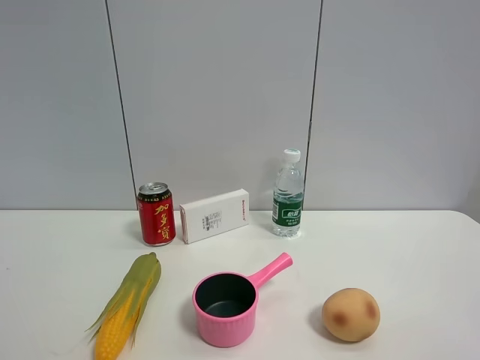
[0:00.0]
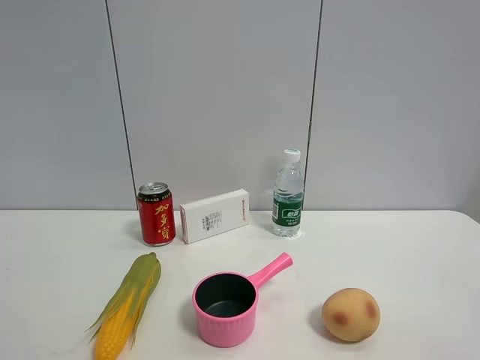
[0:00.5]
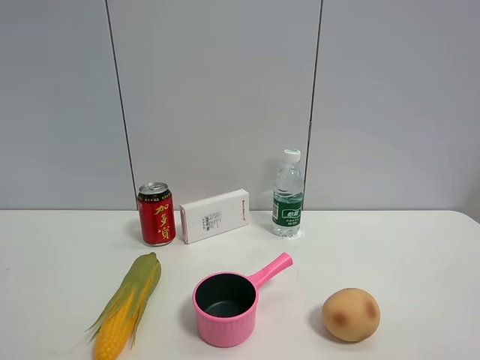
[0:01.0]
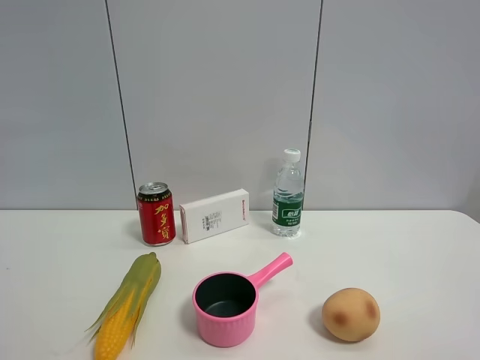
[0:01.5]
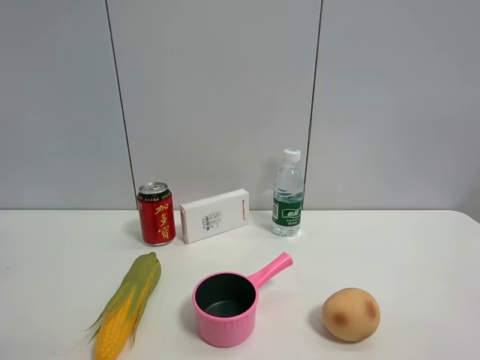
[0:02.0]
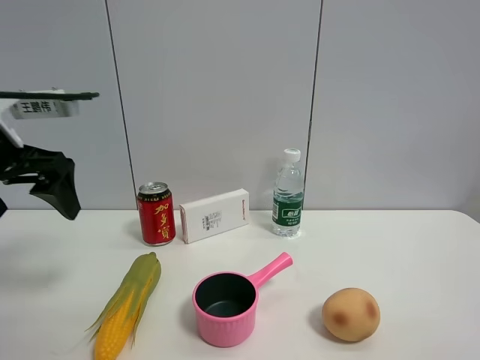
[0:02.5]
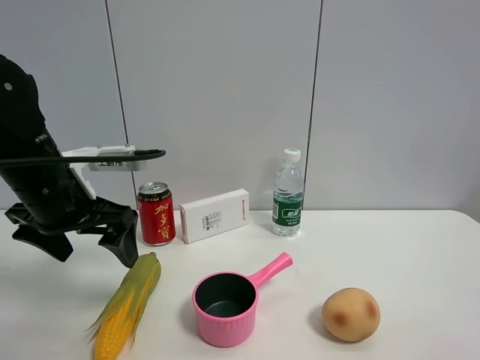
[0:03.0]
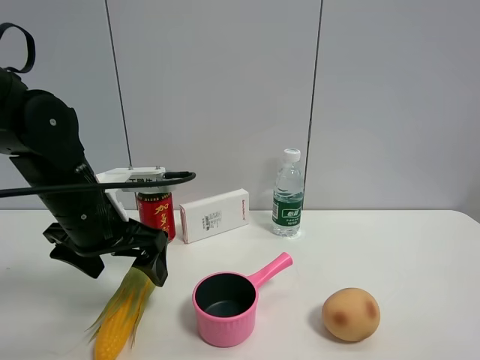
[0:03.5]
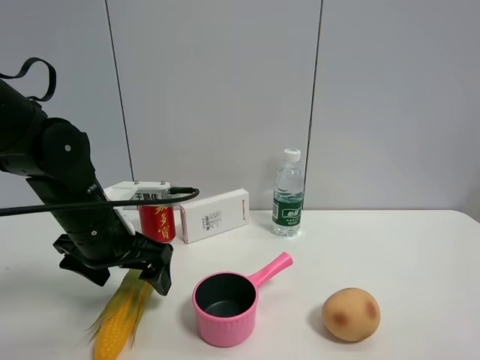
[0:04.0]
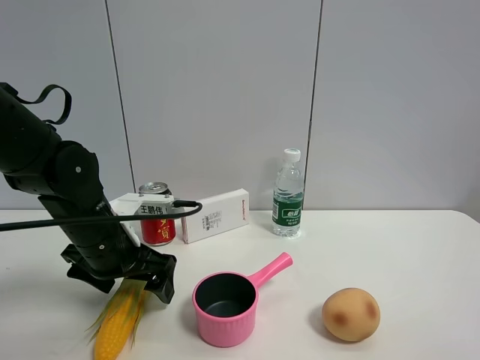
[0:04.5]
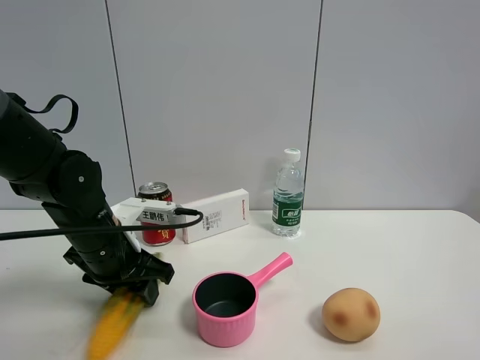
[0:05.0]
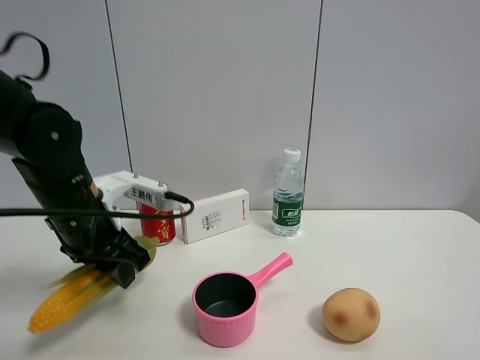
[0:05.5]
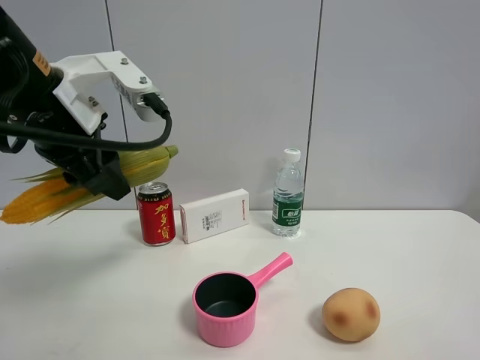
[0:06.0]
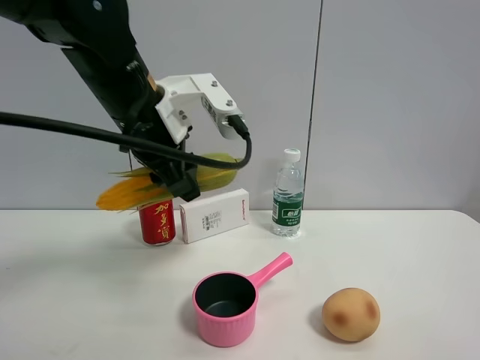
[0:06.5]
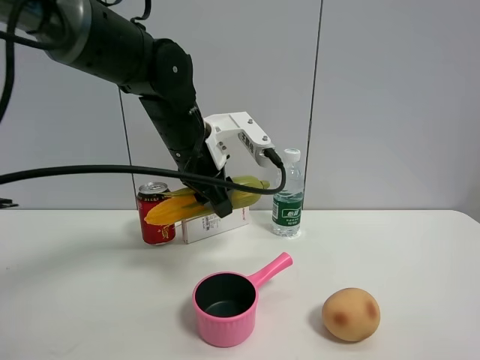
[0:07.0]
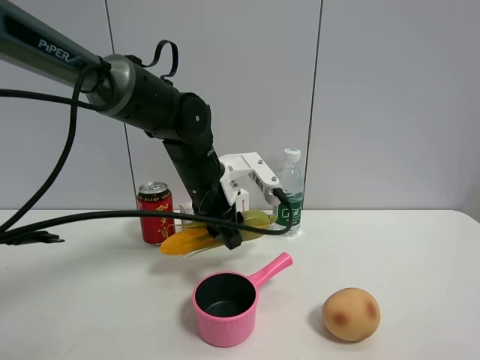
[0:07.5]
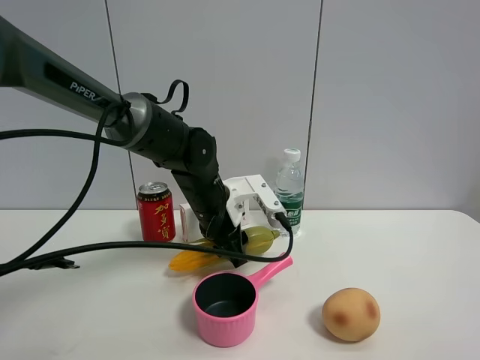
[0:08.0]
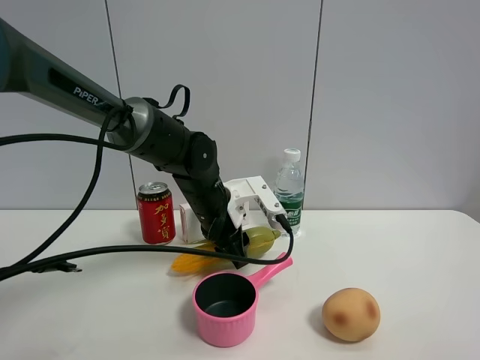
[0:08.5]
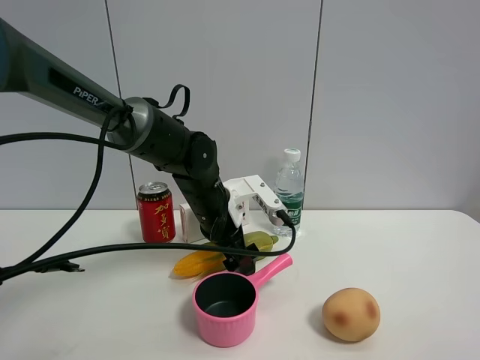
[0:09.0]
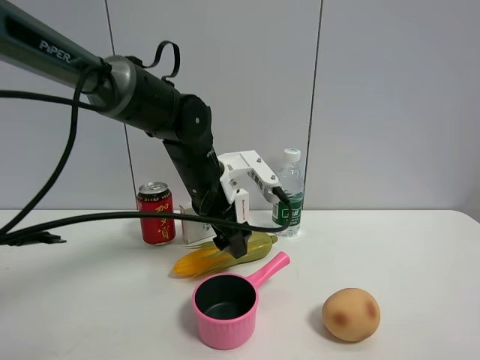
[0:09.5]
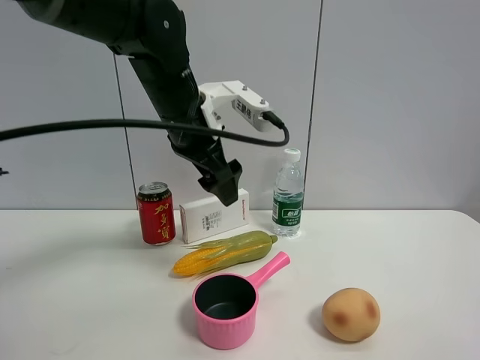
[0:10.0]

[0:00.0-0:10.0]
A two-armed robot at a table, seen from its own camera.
Task of the whole recording: the gripper move the object.
Step, 0:00.0 to 0:05.0: Grasp the corn with the left gripper.
Step, 0:05.5 to 0:09.0: Place the corn on the table with the left gripper.
0:02.0 to 0:04.0: The left gripper shifts approximately 25 cm downward and to the right.
0:04.0 to 0:06.0: The left gripper goes about 15 cm upward, and closes.
0:06.0 to 0:08.0: The left gripper shifts roughly 25 cm downward, forward and to the right.
0:08.0 to 0:10.0: The left gripper goes about 15 cm upward, and opens.

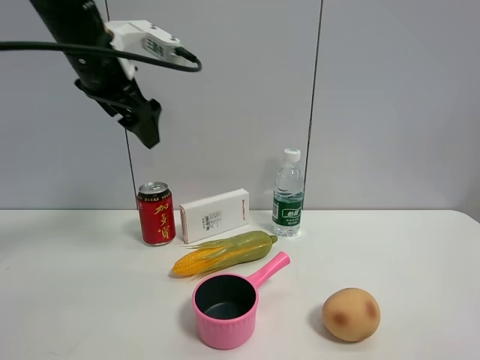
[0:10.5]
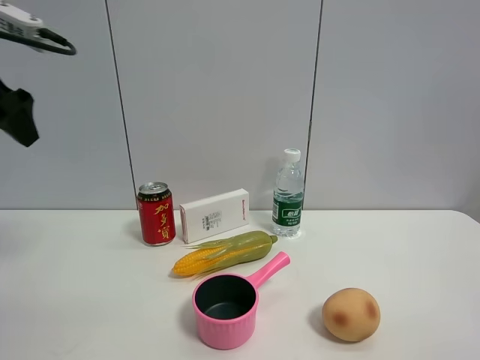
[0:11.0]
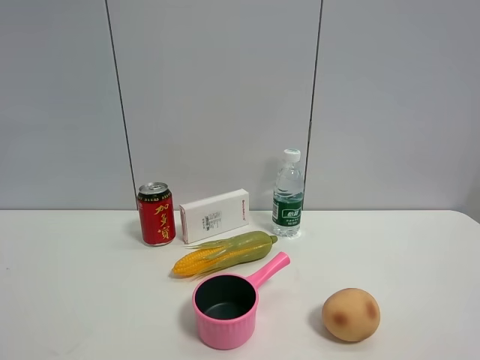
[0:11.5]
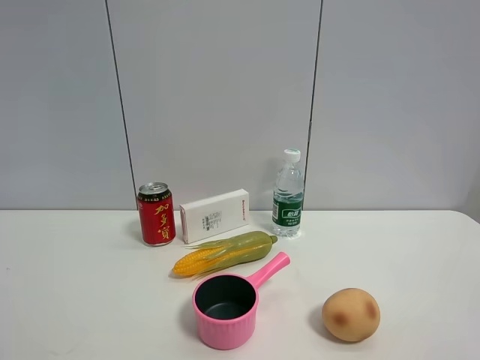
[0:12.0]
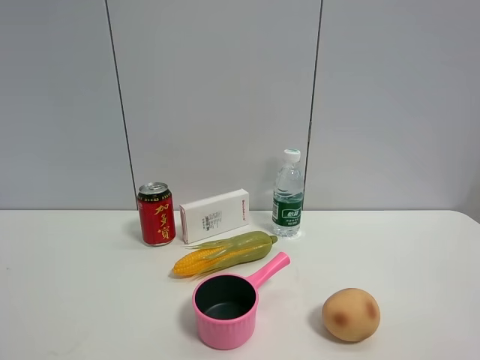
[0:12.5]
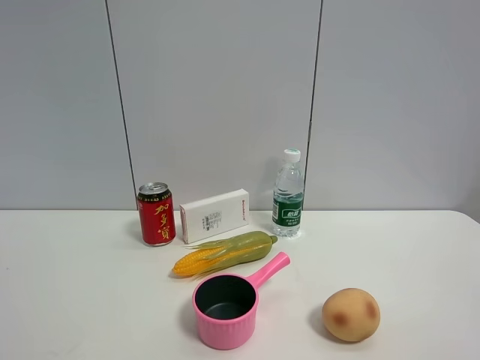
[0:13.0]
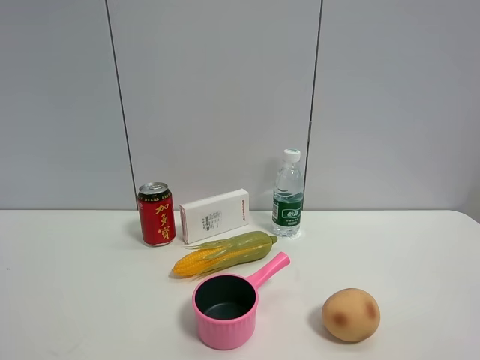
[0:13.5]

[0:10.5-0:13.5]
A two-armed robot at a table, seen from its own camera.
Task of the whole recording: the gripper move the object.
0:10.5 to 0:12.0: The left gripper goes roughly 40 cm backward.

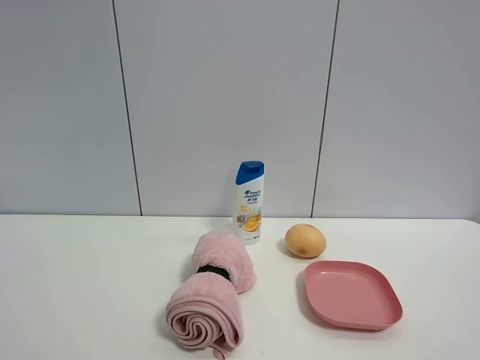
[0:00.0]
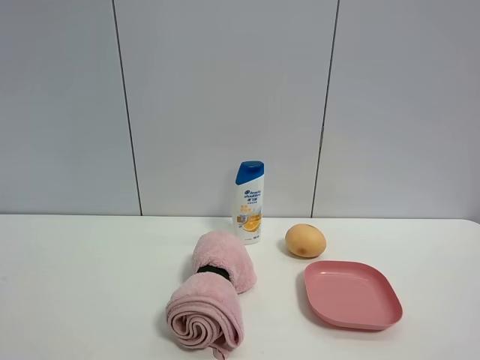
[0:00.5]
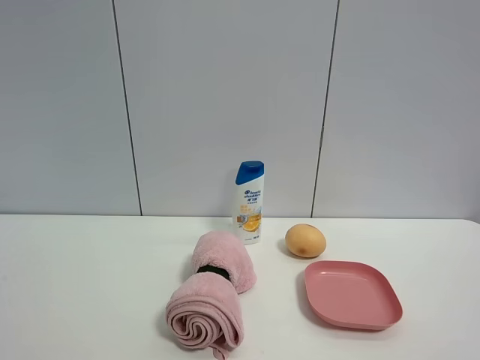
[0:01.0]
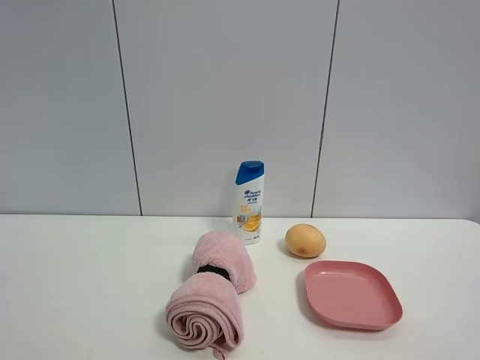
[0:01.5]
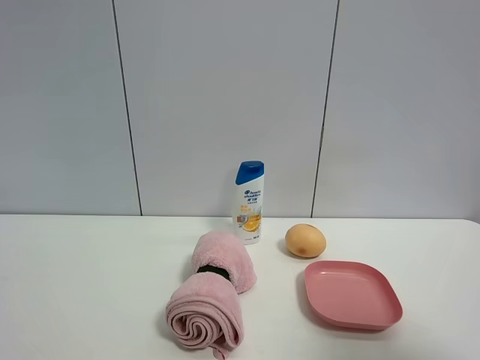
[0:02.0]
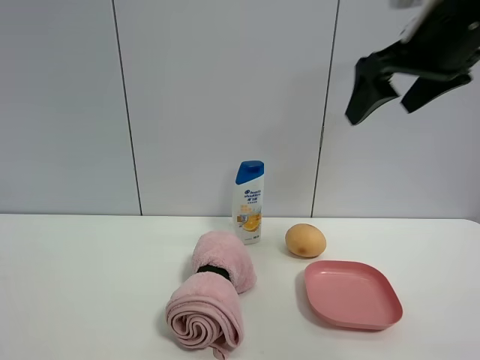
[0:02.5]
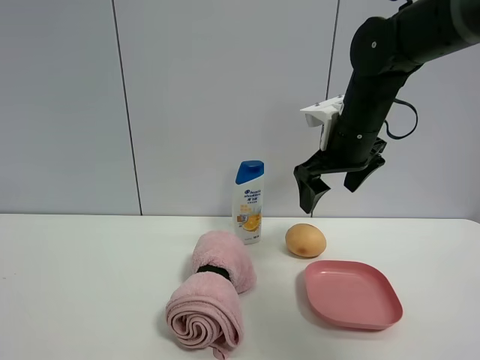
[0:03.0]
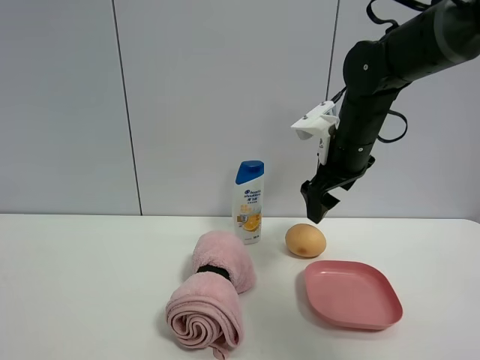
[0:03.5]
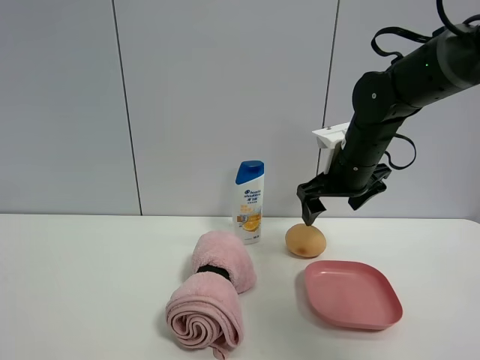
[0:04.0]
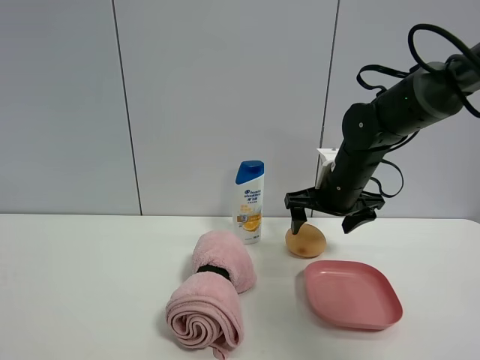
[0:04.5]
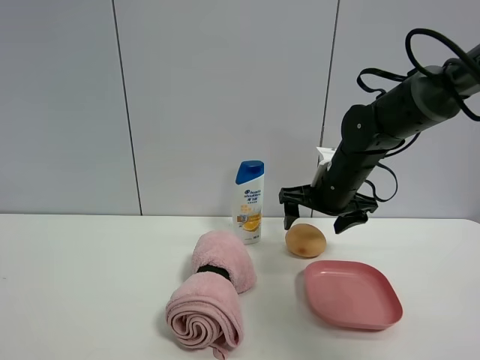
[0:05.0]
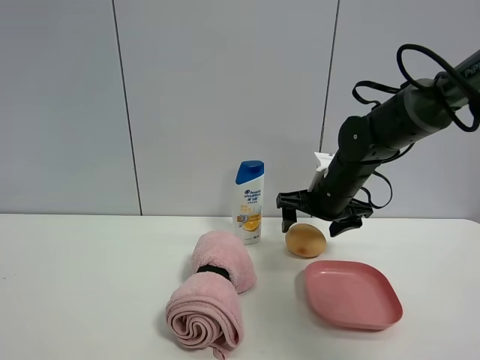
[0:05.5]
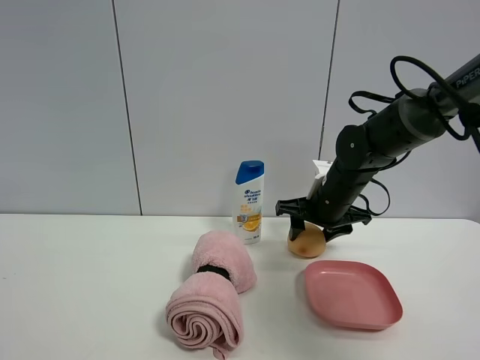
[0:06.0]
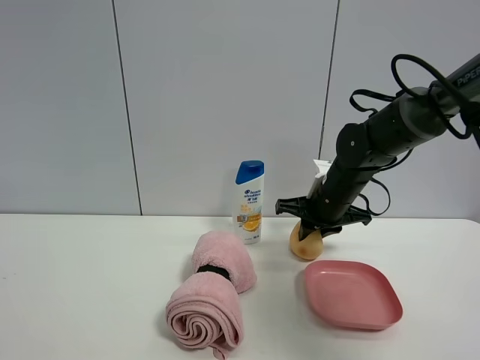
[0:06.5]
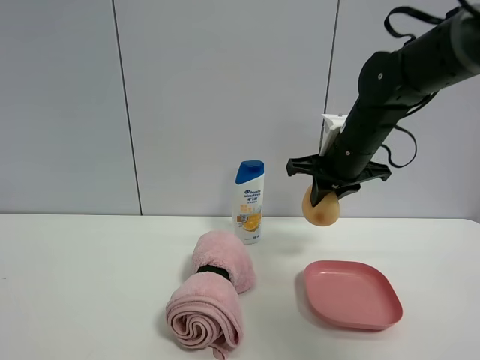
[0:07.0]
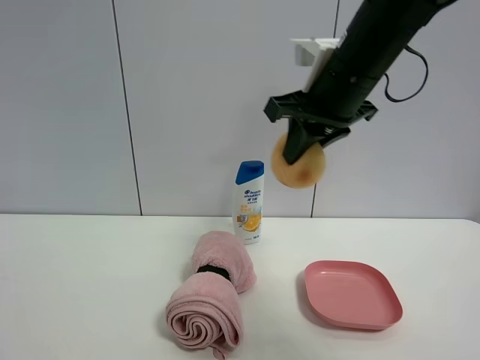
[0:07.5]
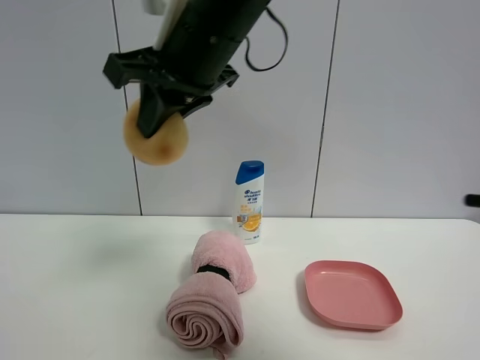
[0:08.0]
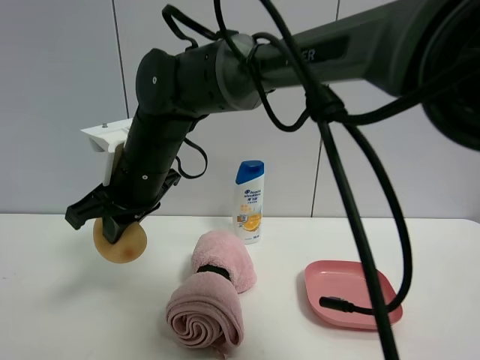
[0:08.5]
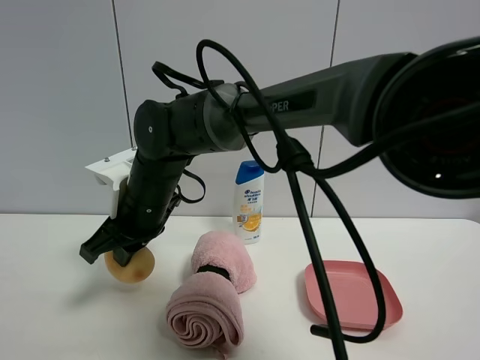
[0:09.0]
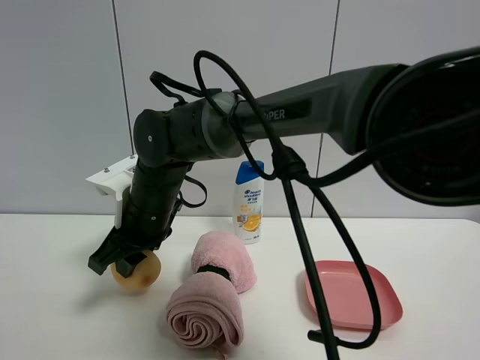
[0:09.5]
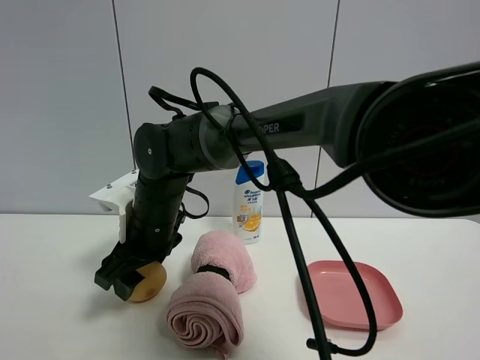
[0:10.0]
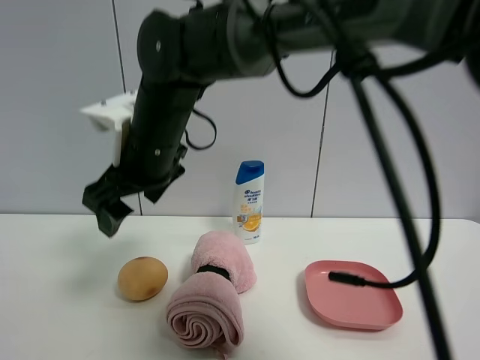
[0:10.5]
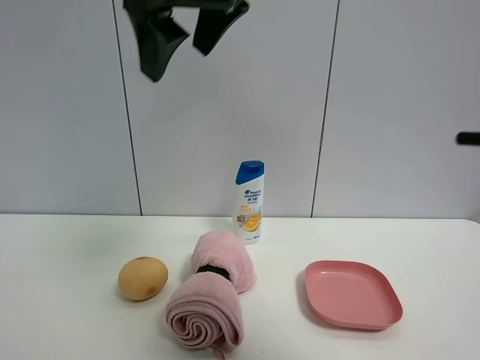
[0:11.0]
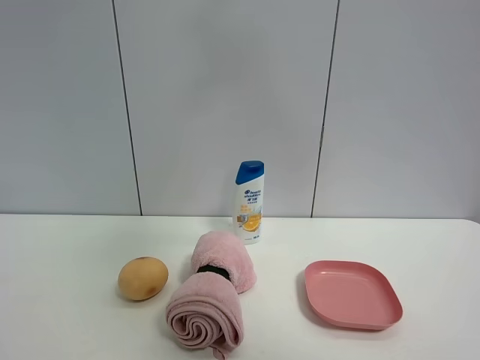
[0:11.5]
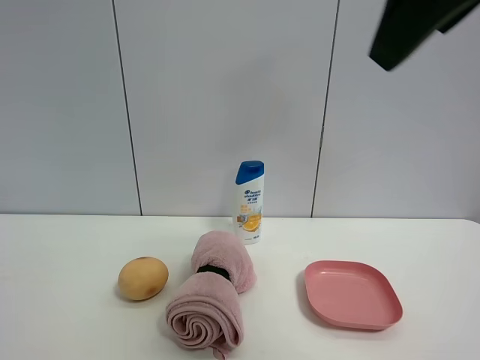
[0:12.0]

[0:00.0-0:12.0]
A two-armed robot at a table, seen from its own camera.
Task of the whole recording: the gripper move the object.
Step, 0:00.0 to 0:06.0: Grasp the egg yolk pastry with the right gripper.
Step, 0:06.5 to 0:10.0: Place the egg yolk pastry on the table with the right gripper.
0:00.0 to 0:02.0: The right gripper moves forward and upward, roughly 10 cm.
0:02.0 to 0:04.0: The right gripper goes some 40 cm forward, downward and to the left.
0:04.0 to 0:06.0: The right gripper heads downward, covering about 5 cm, and closes up.
0:06.0 to 0:08.0: The right gripper travels upward, to the left and backward by roughly 30 cm, and closes its fingers.
0:08.0 to 0:10.0: The right gripper moves downward, about 20 cm, and opens up.
0:10.0 to 0:12.0: The right gripper heads upward, to the right and backward, covering roughly 40 cm.
